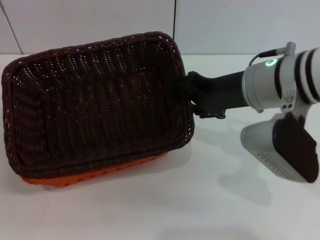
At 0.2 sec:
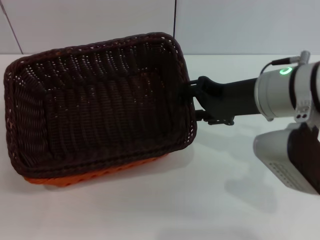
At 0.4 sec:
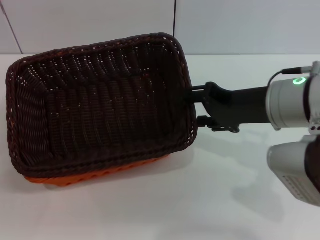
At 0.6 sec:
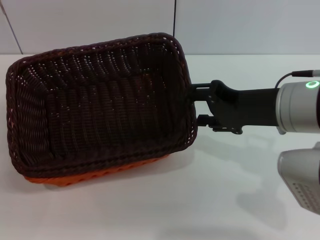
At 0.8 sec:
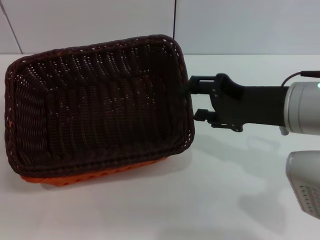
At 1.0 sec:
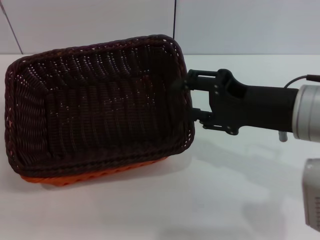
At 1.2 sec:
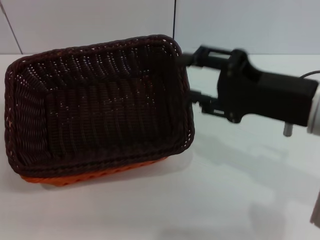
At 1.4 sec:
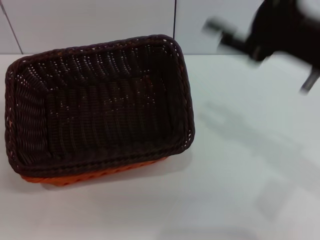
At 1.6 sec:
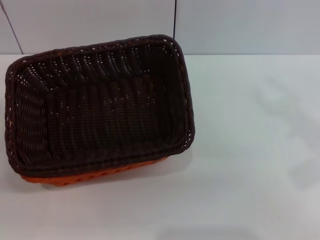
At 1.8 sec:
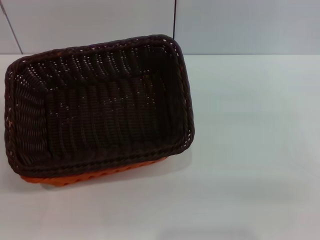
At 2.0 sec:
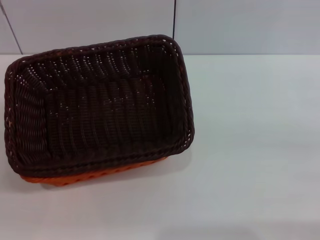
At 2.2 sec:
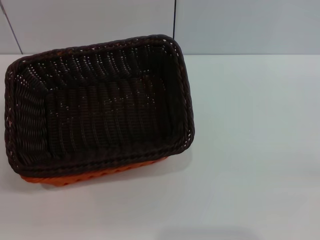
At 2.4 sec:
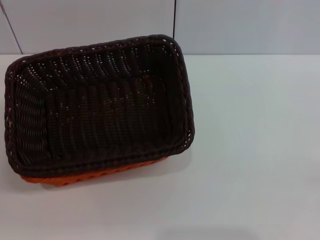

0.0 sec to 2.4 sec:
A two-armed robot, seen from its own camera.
0.0 sec to 1.2 sec: The right gripper shifts some 10 cm backward.
1.2 sec to 2.4 sec: The right gripper moves to the right and downward, approximately 30 cm.
